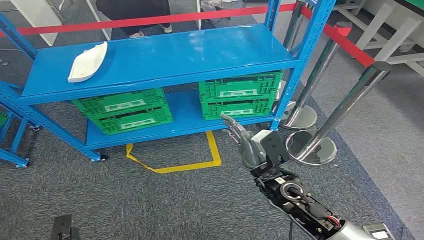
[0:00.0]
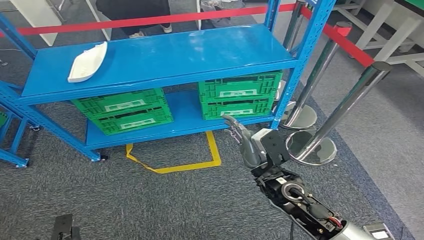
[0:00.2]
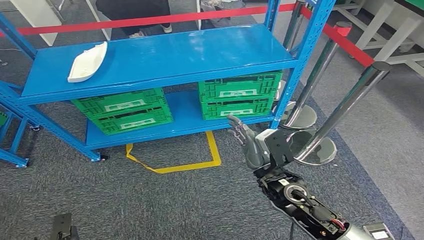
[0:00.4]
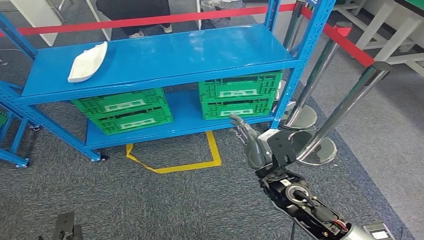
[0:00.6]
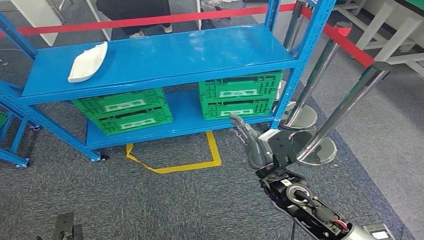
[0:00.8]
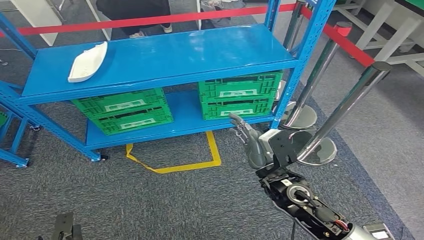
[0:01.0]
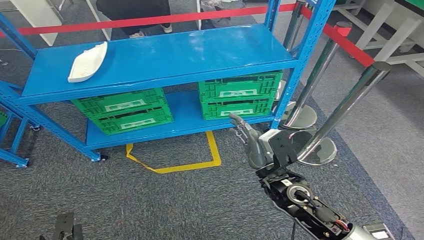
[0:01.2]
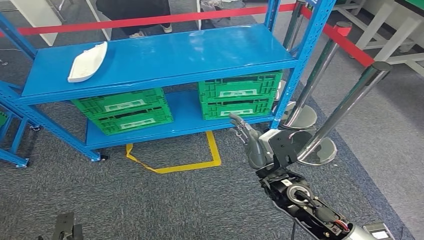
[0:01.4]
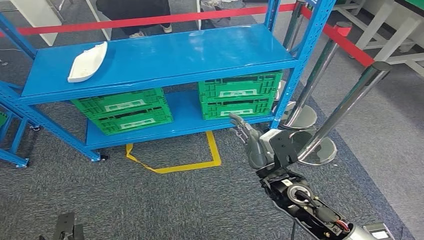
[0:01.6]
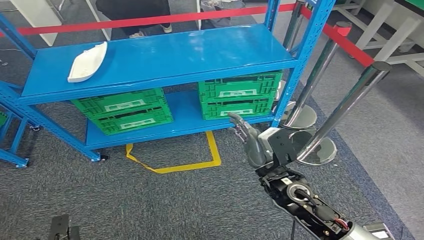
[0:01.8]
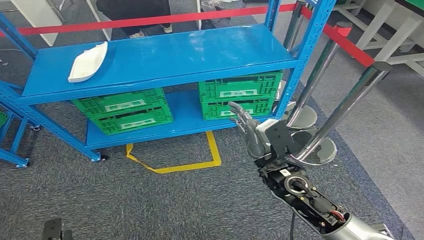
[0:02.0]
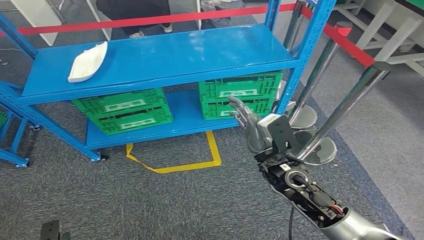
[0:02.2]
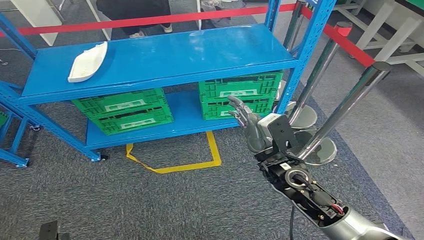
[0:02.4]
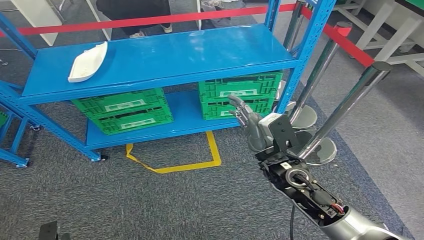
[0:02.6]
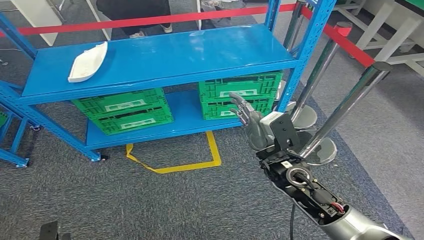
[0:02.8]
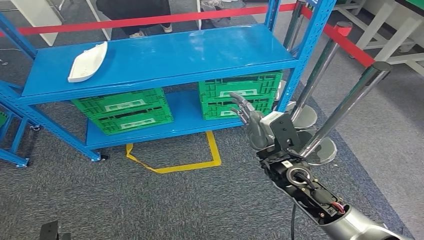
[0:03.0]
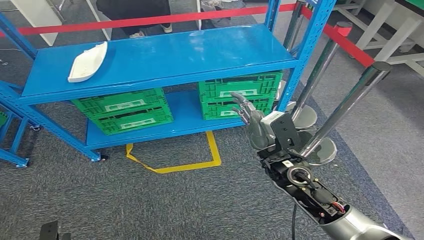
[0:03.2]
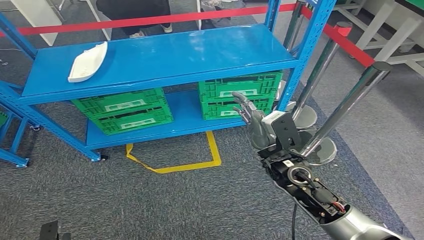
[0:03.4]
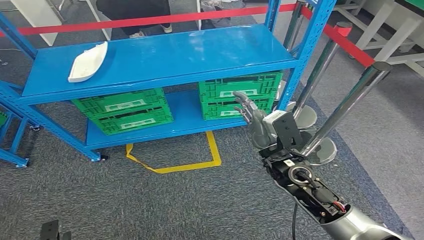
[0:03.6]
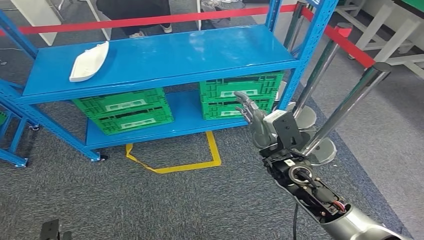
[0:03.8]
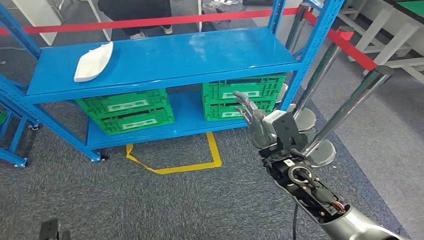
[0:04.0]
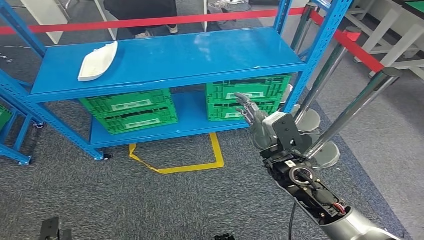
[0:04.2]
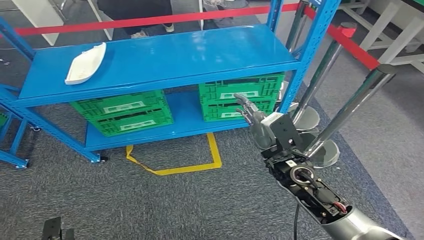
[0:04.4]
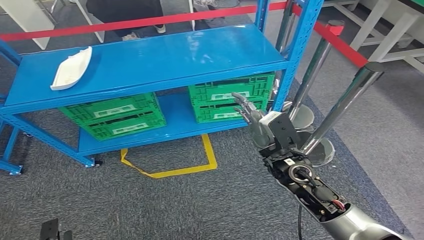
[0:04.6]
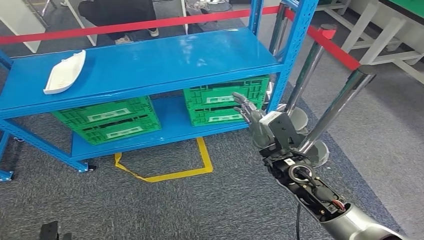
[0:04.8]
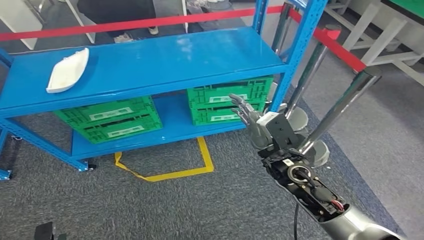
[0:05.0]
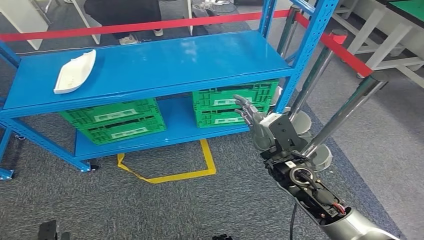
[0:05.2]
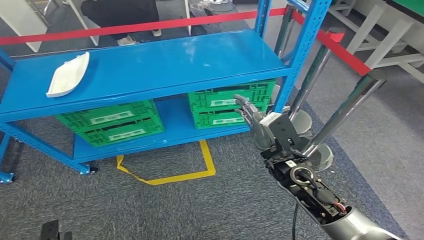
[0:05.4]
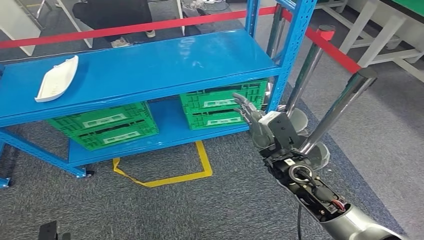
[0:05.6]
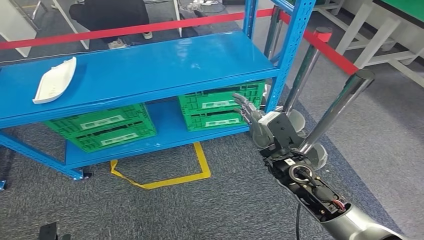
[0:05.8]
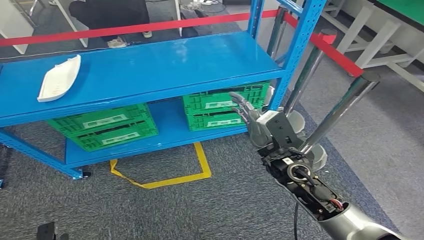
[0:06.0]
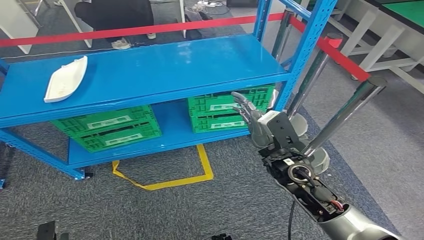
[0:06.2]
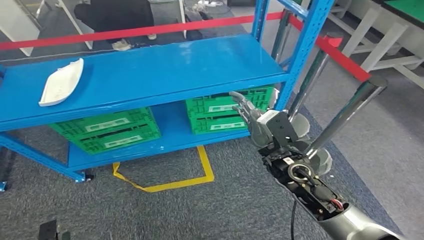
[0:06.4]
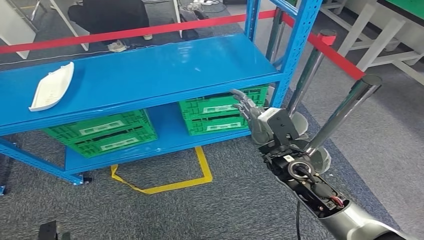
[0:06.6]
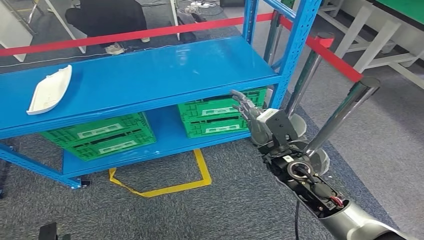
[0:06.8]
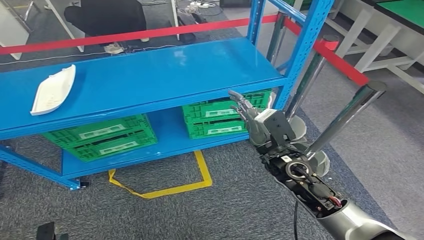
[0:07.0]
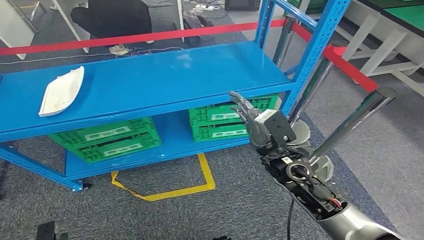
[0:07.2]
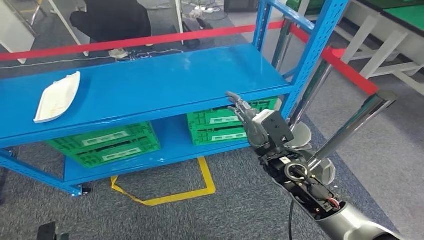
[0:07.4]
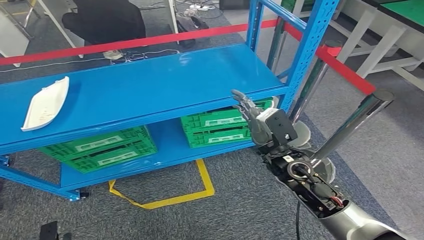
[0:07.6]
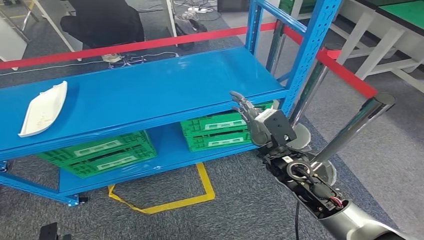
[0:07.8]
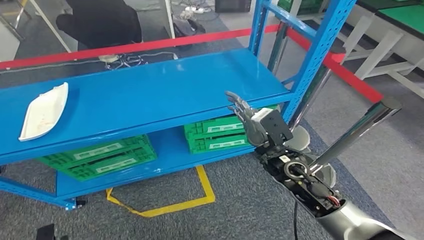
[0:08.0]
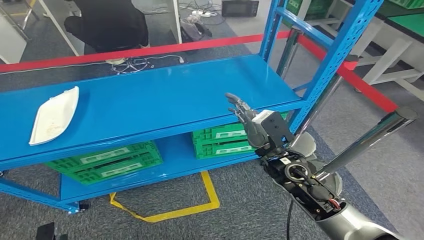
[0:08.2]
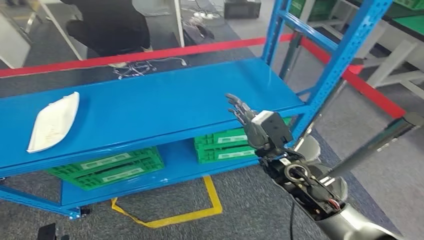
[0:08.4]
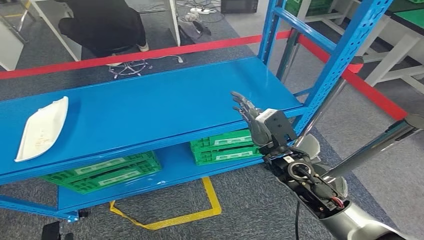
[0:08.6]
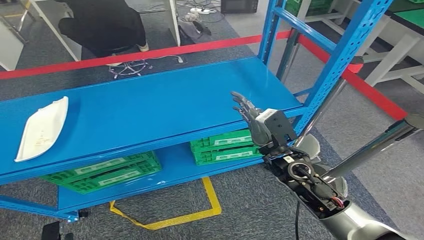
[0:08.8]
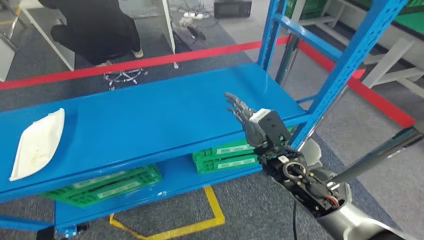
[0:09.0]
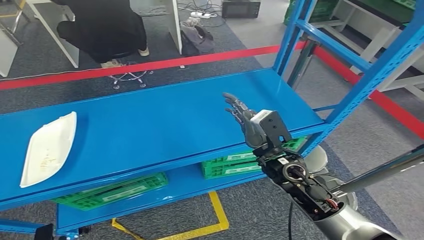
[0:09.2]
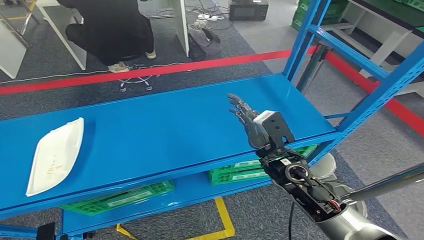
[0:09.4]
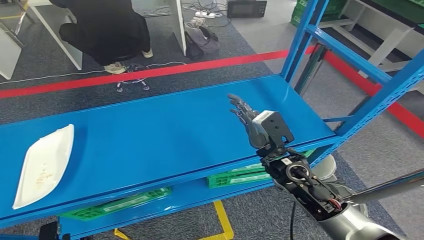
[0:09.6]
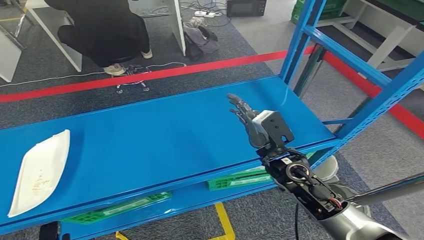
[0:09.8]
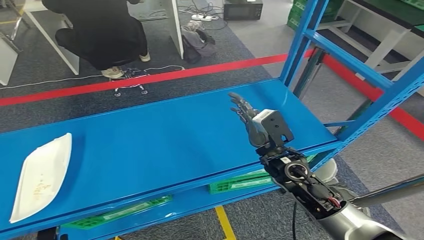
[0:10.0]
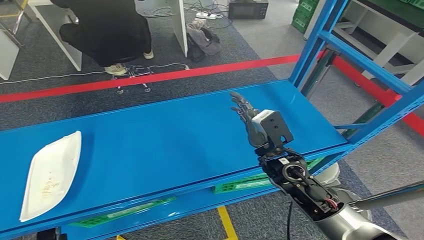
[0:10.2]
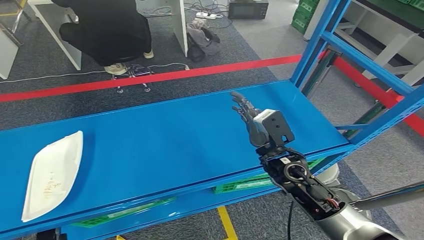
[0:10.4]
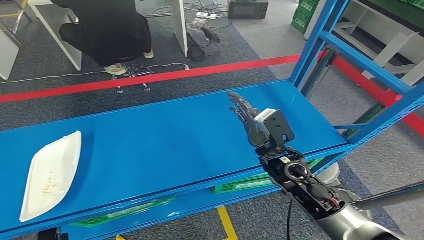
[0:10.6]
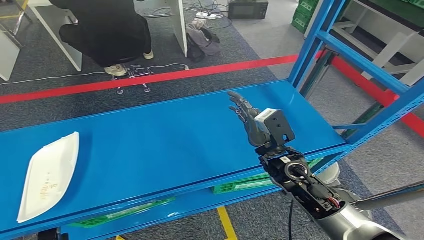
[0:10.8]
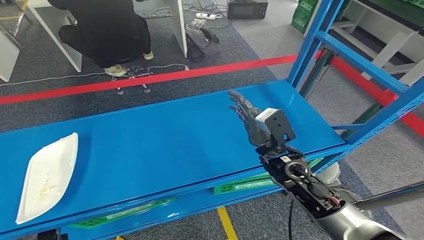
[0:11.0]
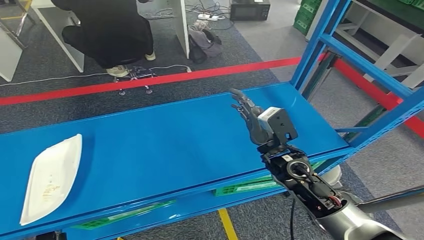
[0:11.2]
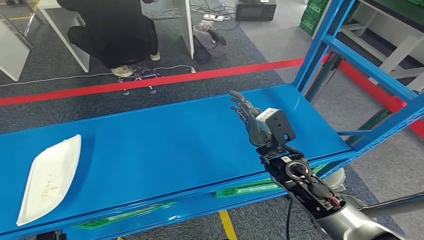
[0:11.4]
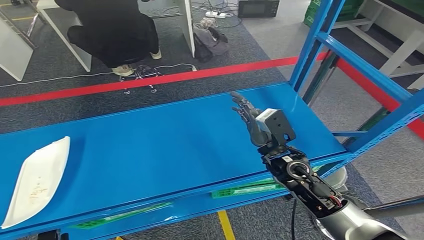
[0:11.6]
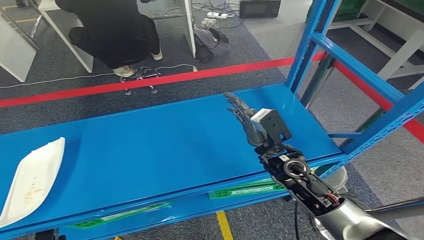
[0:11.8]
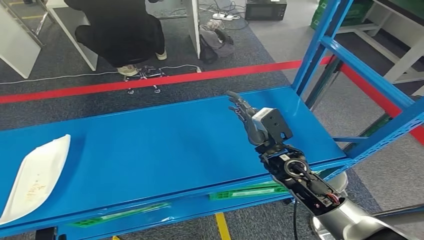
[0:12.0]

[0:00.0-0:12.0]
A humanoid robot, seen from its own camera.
0:01.6 to 0:03.0: The right hand changes place by some 5 cm.
0:03.0 to 0:04.4: Both hands stay put.

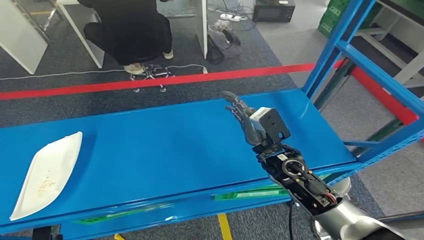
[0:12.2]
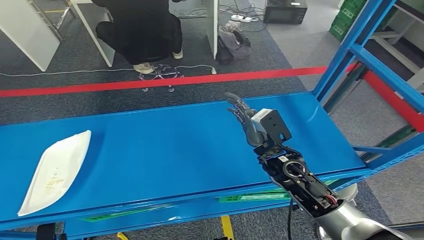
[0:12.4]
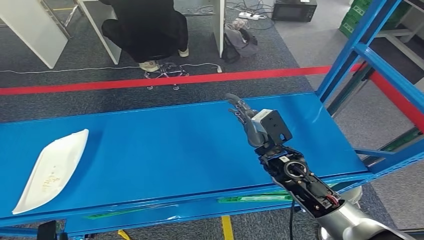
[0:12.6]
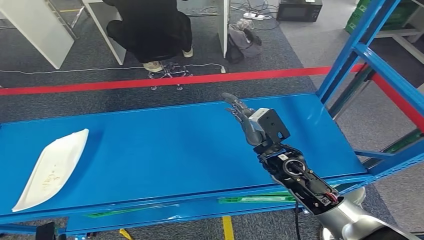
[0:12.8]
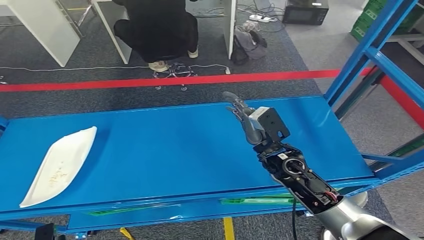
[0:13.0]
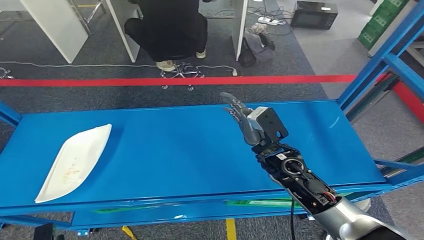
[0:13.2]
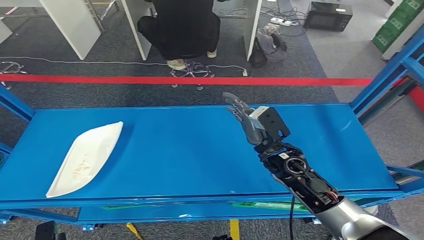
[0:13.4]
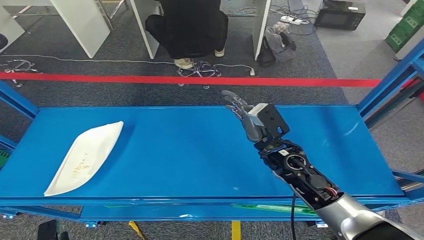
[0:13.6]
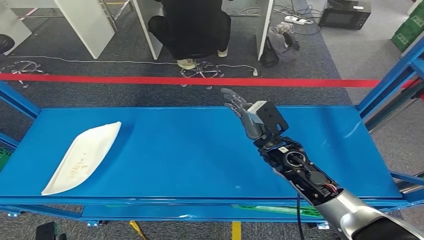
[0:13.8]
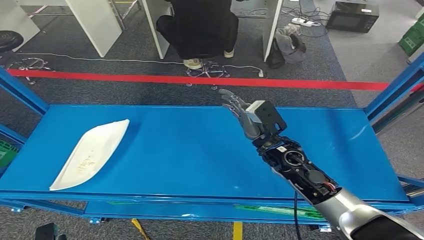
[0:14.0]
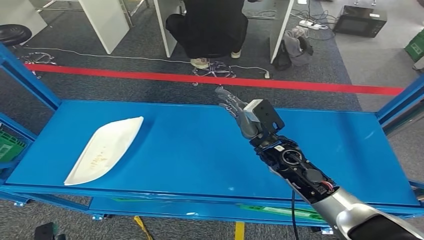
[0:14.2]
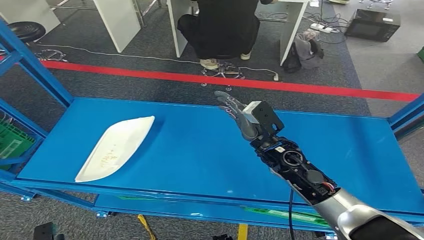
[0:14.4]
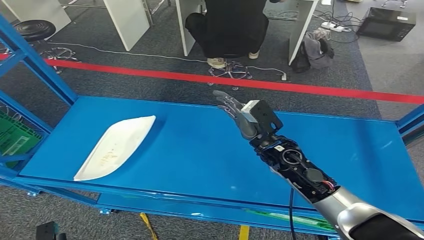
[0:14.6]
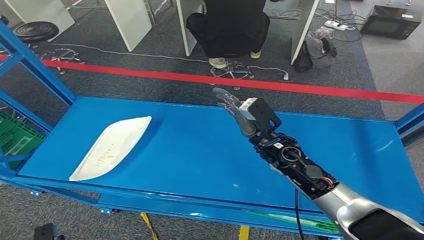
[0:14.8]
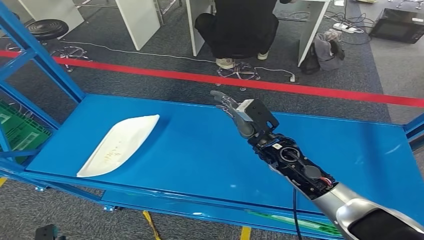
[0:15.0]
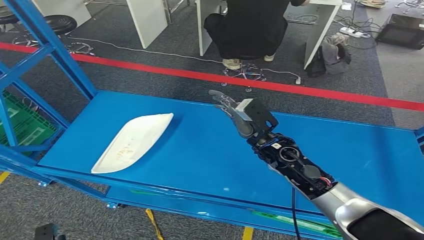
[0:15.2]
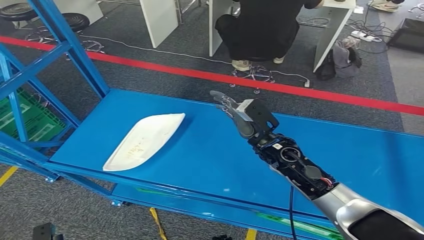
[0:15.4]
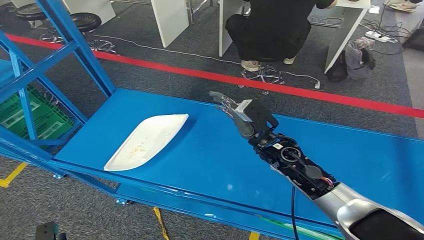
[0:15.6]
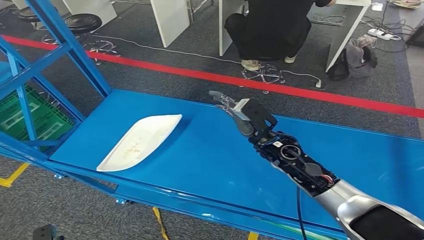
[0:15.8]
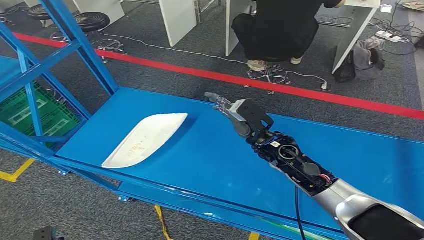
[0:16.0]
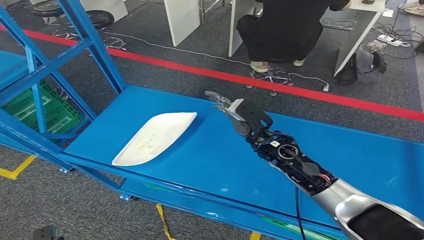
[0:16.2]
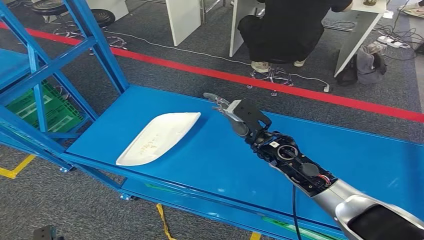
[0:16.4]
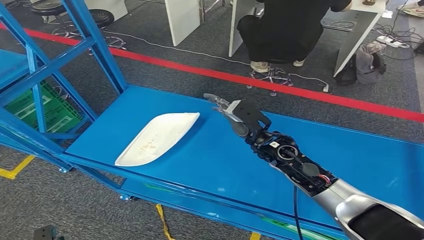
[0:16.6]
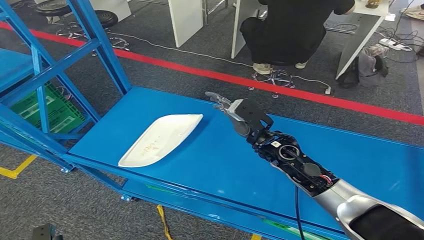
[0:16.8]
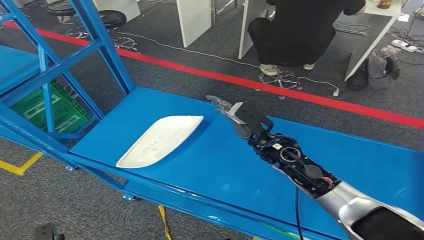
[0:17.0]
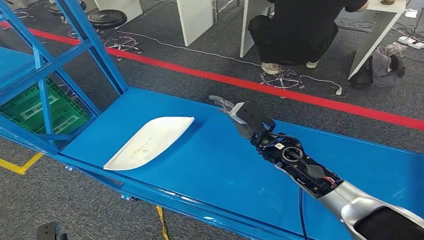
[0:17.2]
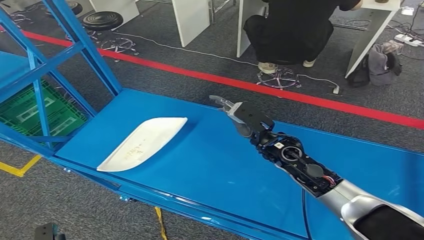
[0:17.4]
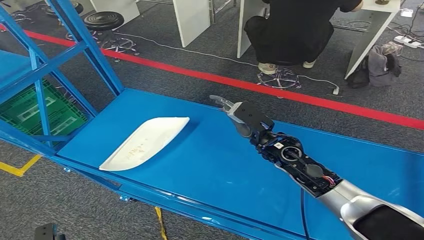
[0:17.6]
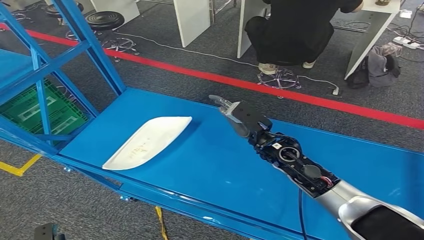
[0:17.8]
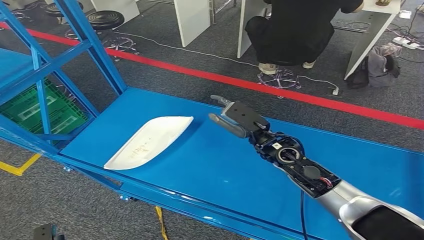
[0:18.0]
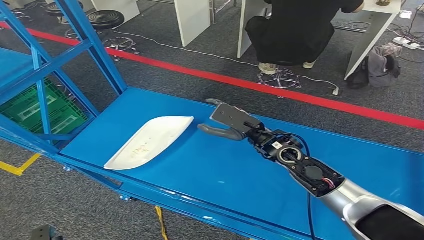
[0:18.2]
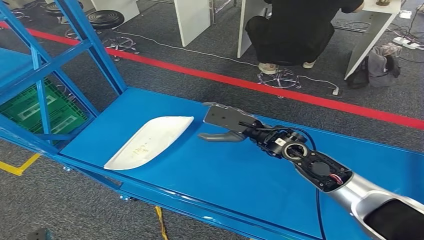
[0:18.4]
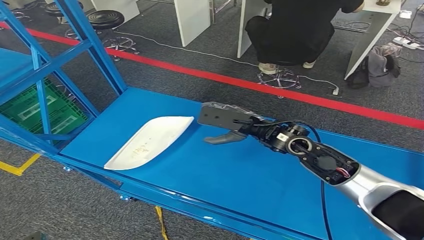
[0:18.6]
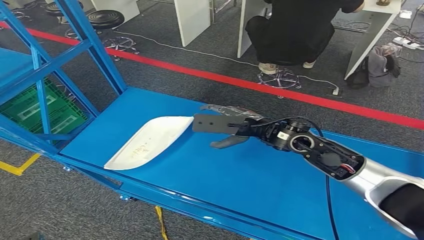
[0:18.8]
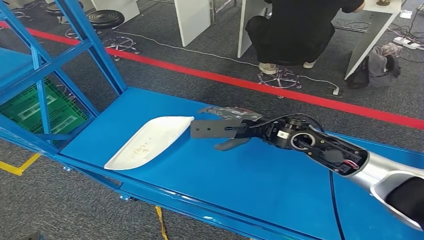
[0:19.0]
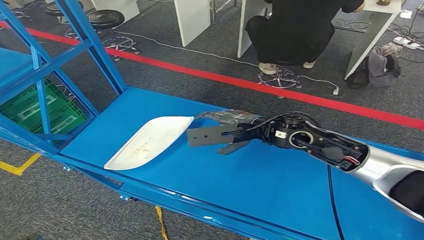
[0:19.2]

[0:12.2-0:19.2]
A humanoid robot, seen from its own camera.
0:16.4 to 0:17.8: The two hands keep their place.
0:17.8 to 0:19.2: The right hand moves upward, roughly 10 cm.
